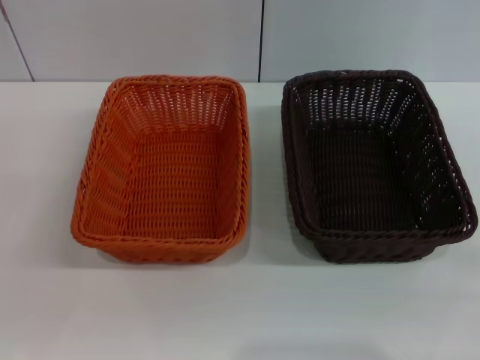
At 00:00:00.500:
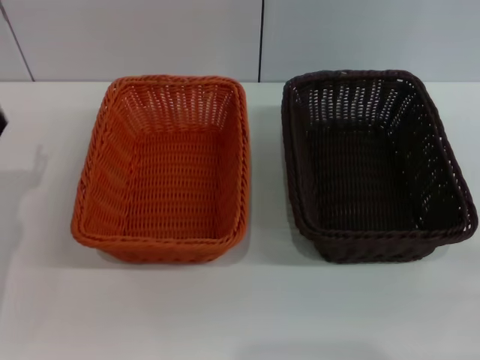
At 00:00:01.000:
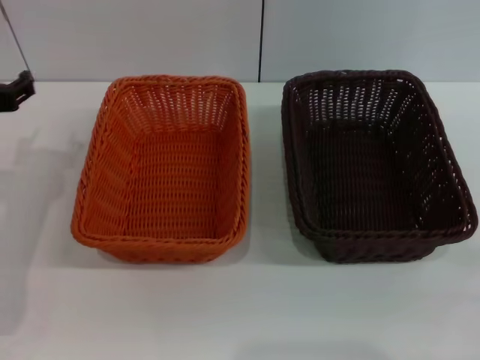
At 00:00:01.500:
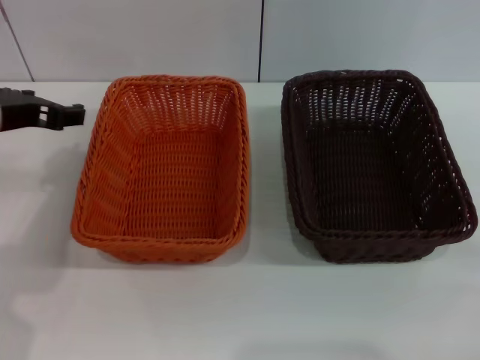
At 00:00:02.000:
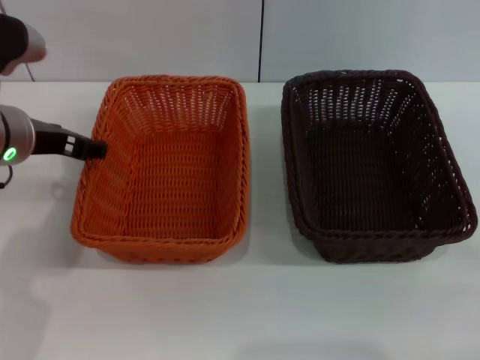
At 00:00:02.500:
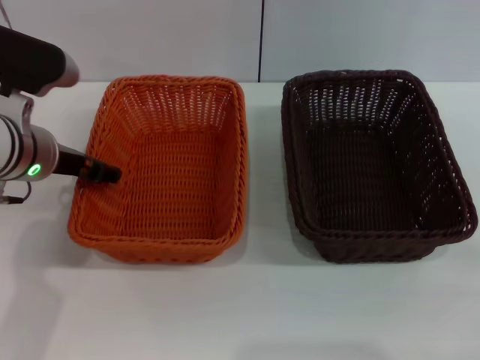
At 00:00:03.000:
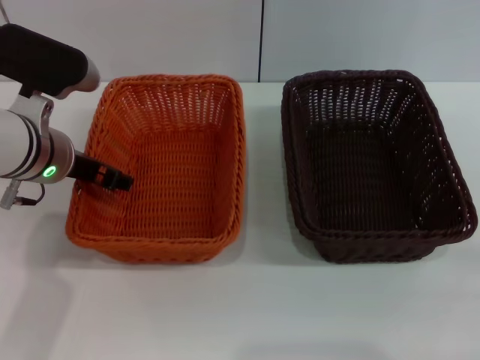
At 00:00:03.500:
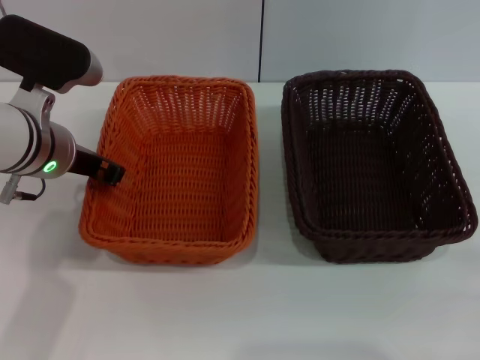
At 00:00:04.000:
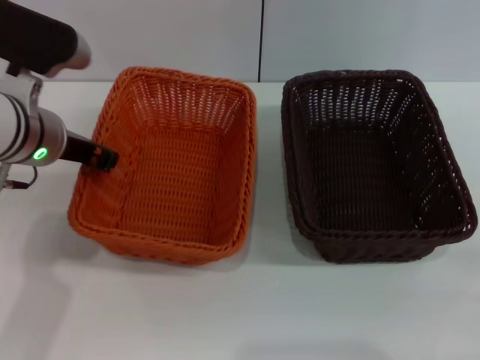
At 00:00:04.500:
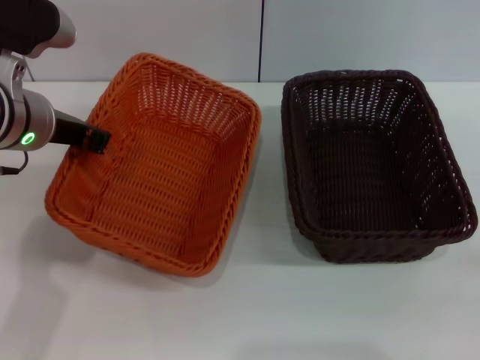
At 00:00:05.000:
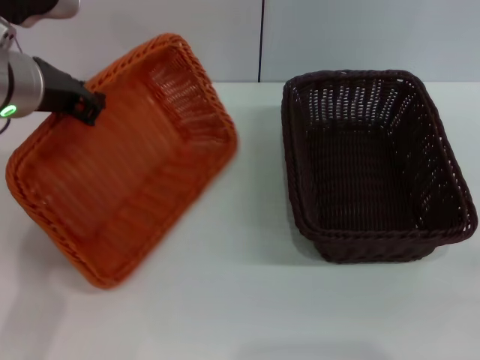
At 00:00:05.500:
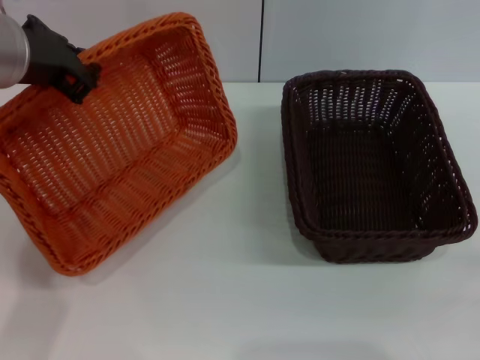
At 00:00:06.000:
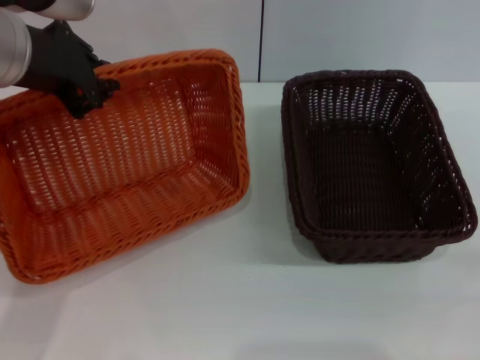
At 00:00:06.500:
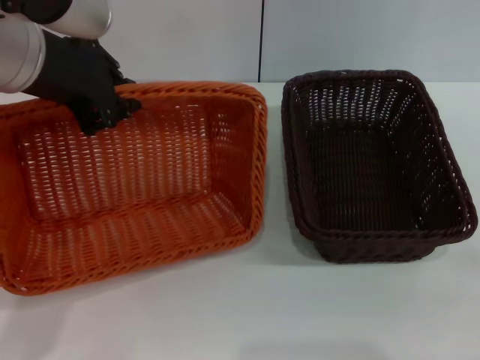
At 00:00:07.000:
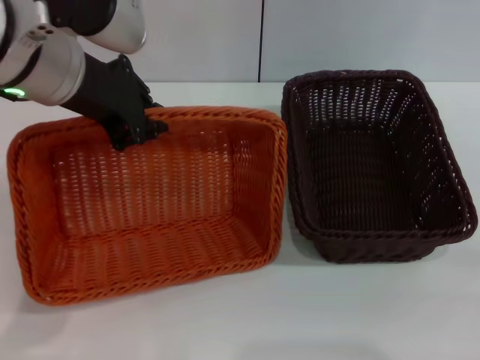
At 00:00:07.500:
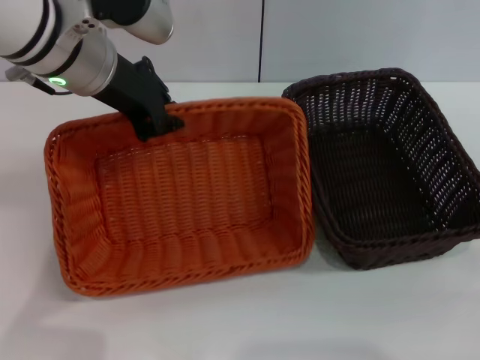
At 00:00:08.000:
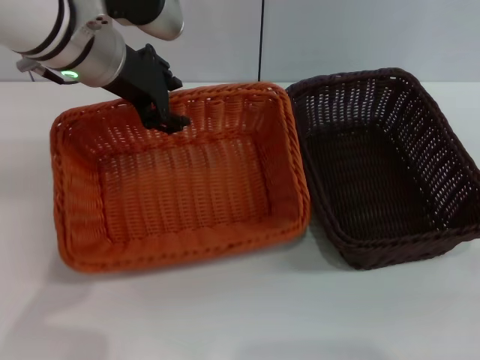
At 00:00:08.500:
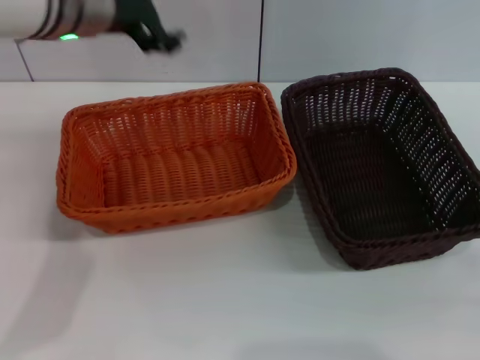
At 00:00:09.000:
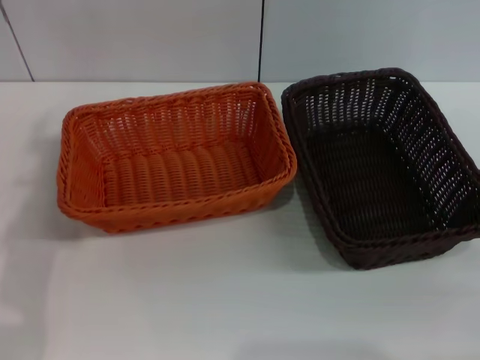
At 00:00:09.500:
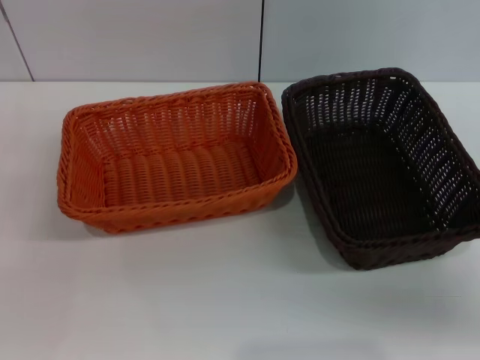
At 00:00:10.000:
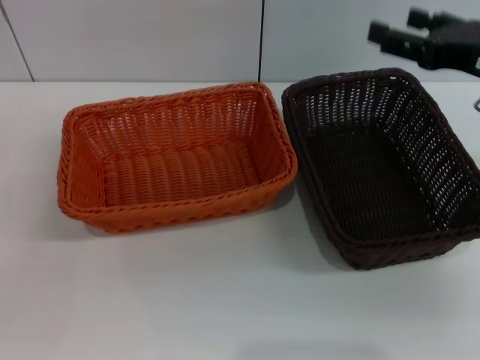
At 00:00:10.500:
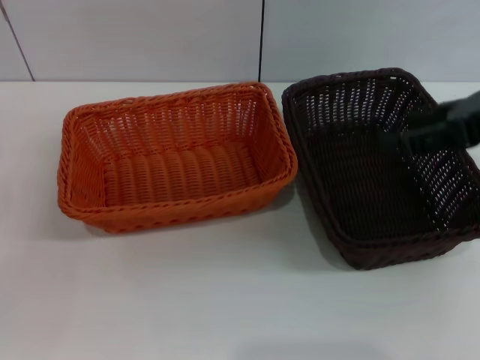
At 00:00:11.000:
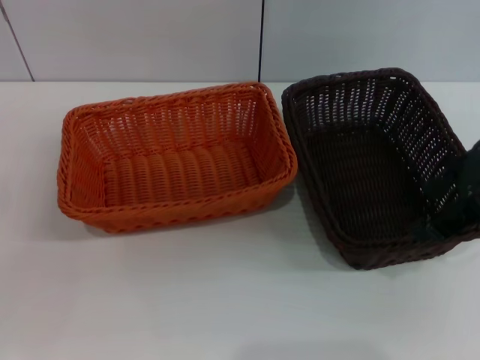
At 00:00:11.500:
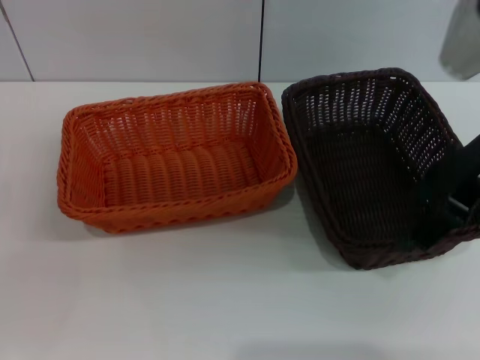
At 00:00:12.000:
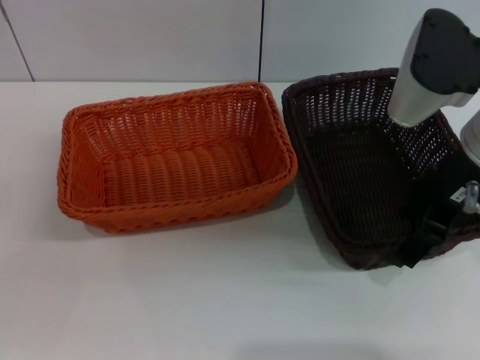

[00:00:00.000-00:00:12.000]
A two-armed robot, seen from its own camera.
Step, 00:00:00.000 to 00:00:04.000: Pick up the light basket with the left gripper.
Step, 00:00:04.500 to 00:00:08.000: Place the light basket in the center of view with the left gripper.
00:00:00.000 to 00:00:02.000: The left gripper goes about 20 cm upward, to the right and forward.
00:00:02.000 to 00:00:04.000: The left gripper closes up.
00:00:04.000 to 00:00:06.000: The left gripper travels upward by some 10 cm.
00:00:06.000 to 00:00:08.000: The left gripper heads forward, covering some 10 cm.
00:00:08.000 to 00:00:10.000: The right gripper travels upward, forward and to the left by about 25 cm. Meanwhile the left gripper is displaced downward, to the left and backward by roughly 35 cm, and opens its fingers.
00:00:10.000 to 00:00:12.000: The right gripper goes approximately 10 cm to the left.

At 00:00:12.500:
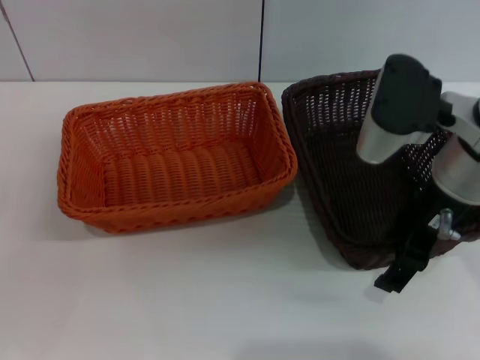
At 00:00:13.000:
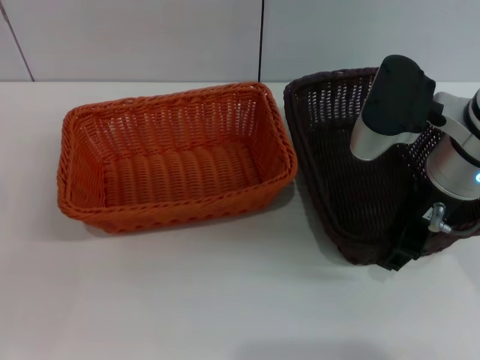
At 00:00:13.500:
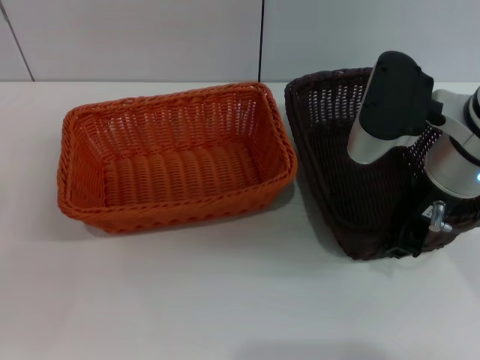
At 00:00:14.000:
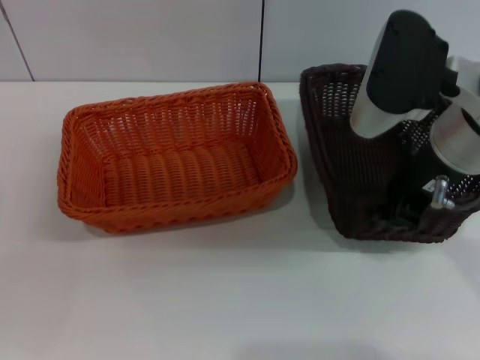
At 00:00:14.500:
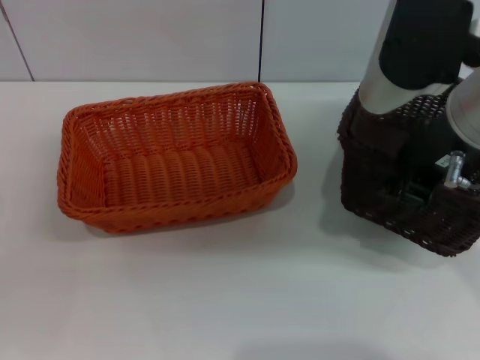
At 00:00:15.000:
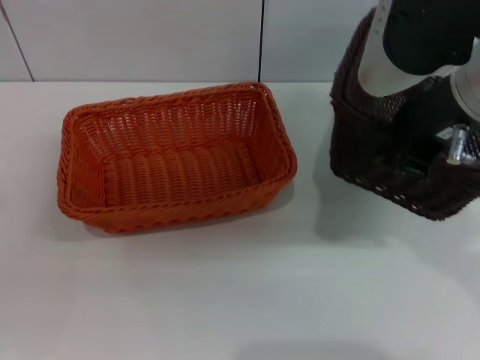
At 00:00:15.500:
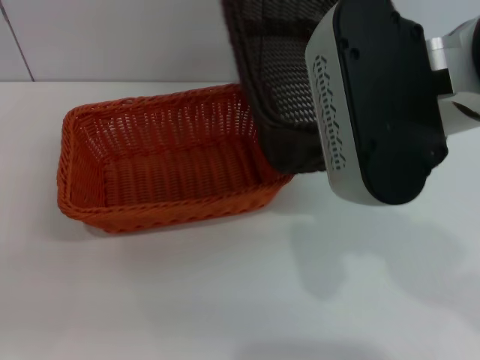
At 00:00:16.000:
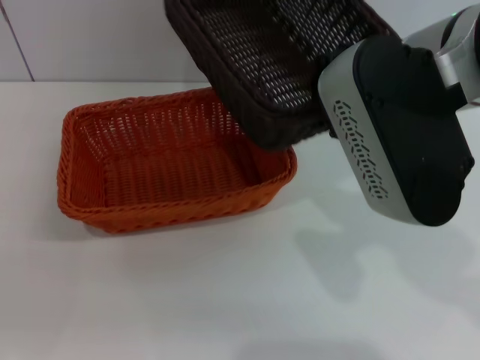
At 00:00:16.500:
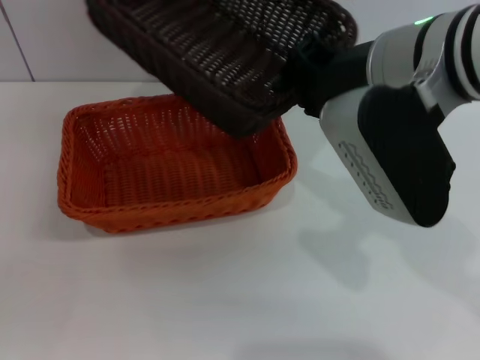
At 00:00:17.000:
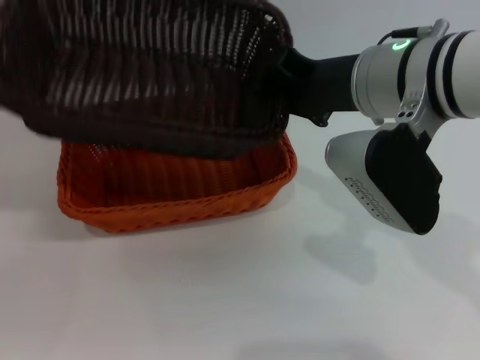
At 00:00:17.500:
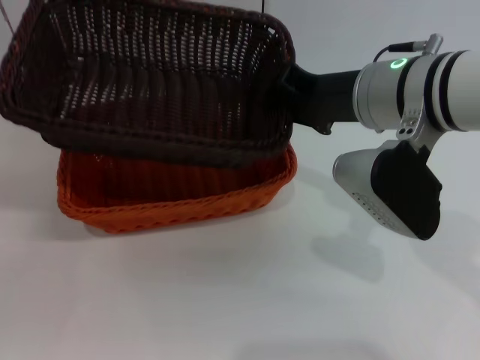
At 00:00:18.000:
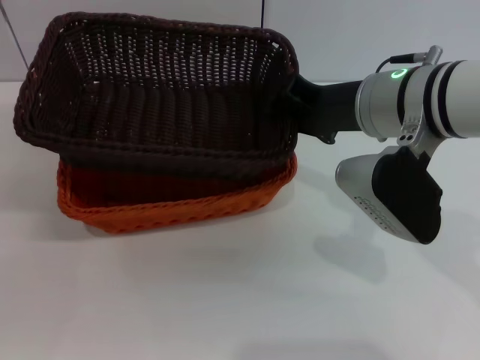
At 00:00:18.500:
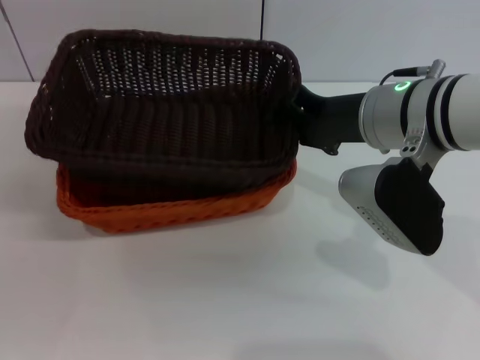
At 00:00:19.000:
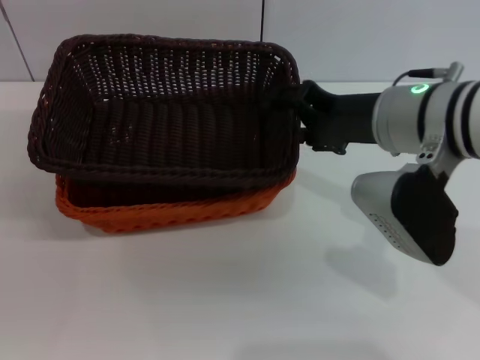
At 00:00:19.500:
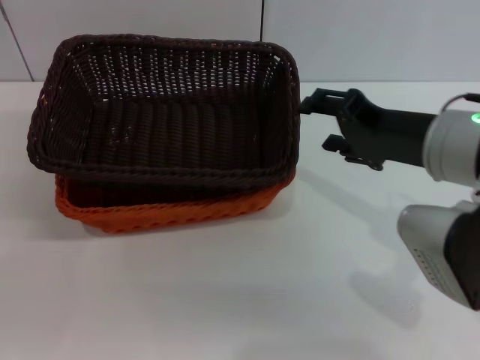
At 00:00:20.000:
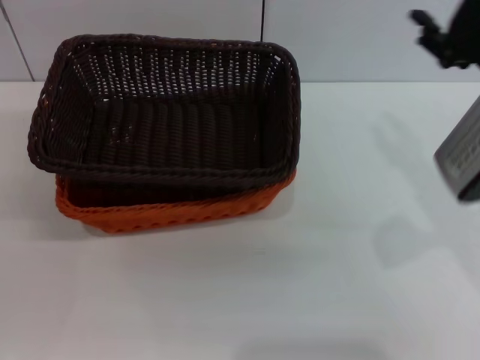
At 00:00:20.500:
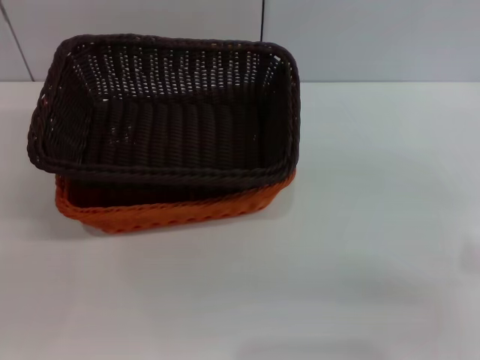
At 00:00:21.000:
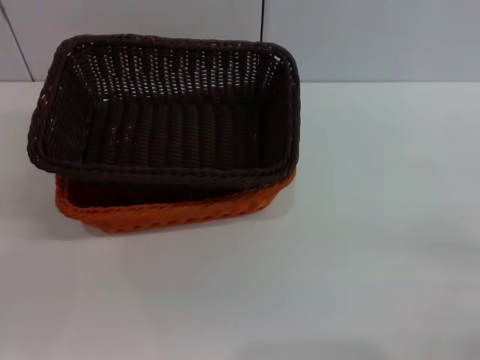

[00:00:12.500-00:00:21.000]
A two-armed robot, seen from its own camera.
Step, 00:00:14.500 to 00:00:18.500: Place the dark basket on the light basket with the right gripper.
00:00:12.500 to 00:00:14.500: The right gripper is displaced upward by approximately 5 cm, and closes up.
00:00:16.500 to 00:00:19.000: The right gripper travels downward by approximately 5 cm, and opens up.
00:00:19.000 to 00:00:21.000: The right gripper is displaced to the right, backward and downward by approximately 30 cm.
